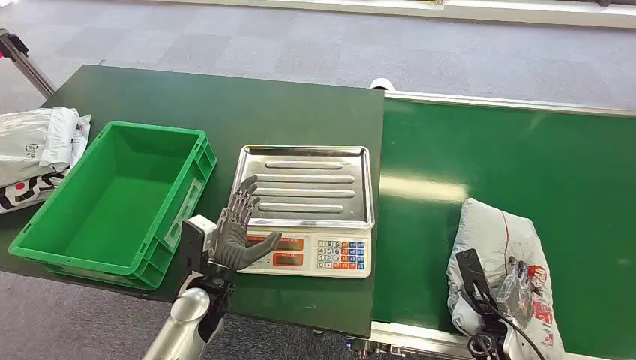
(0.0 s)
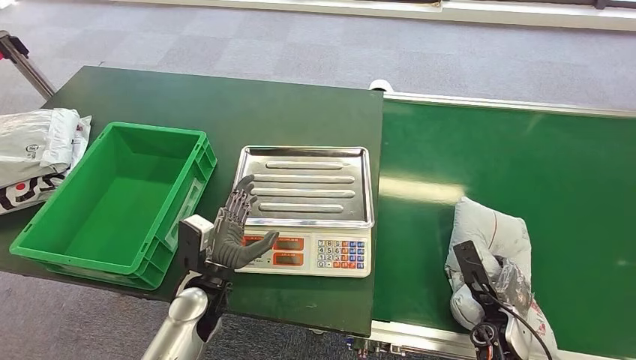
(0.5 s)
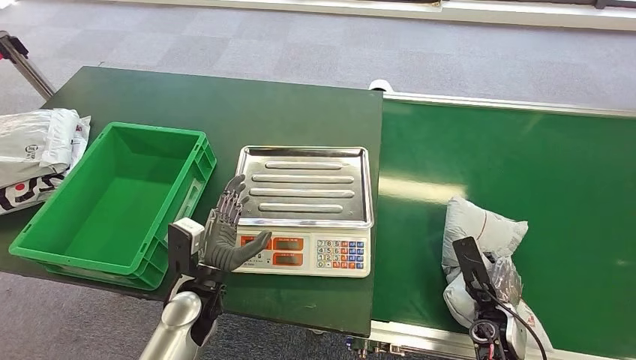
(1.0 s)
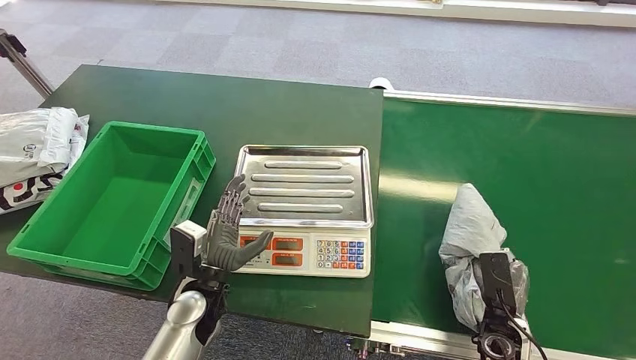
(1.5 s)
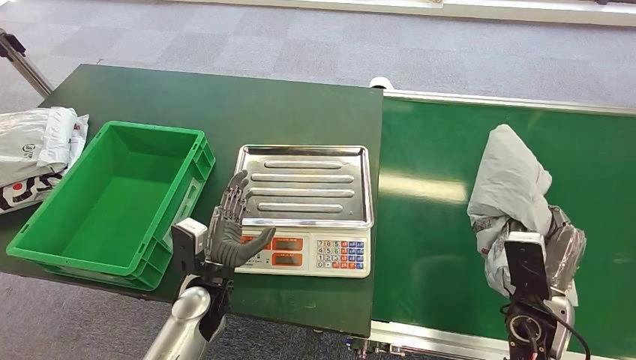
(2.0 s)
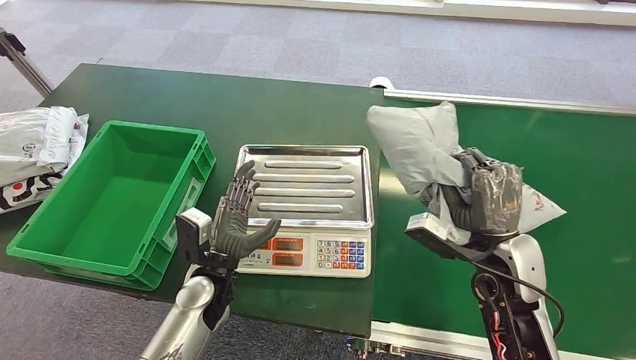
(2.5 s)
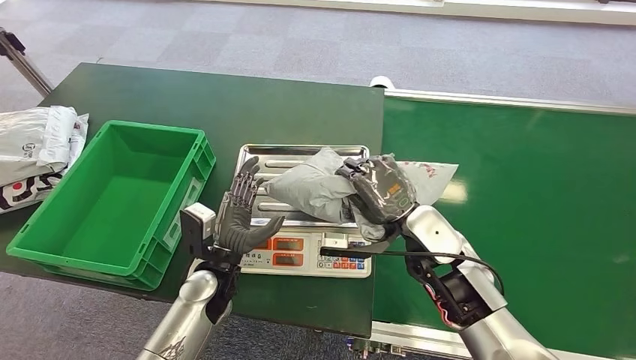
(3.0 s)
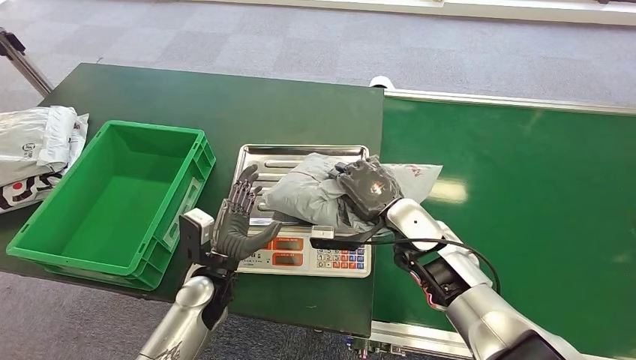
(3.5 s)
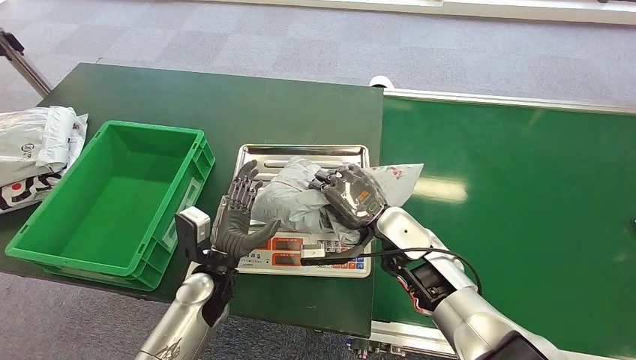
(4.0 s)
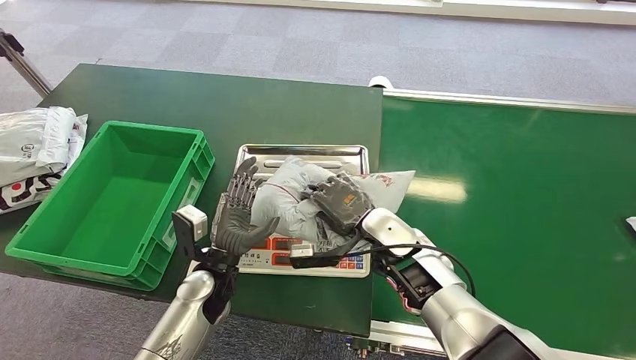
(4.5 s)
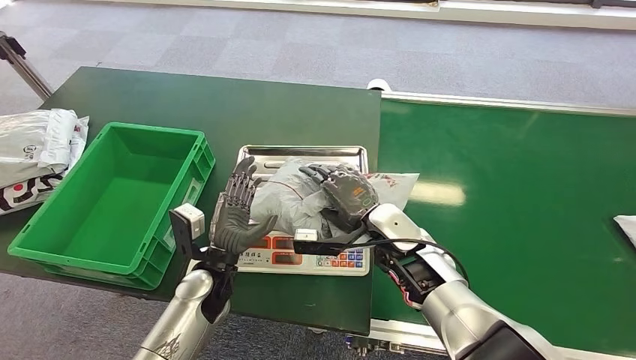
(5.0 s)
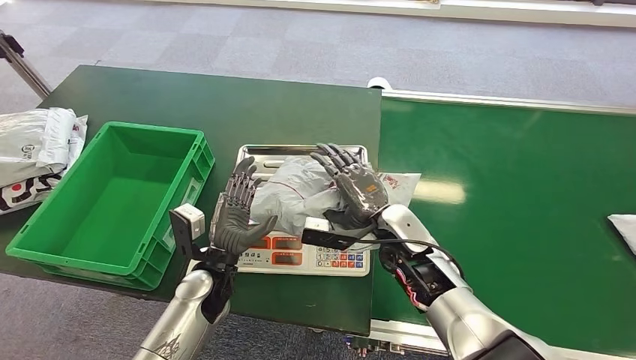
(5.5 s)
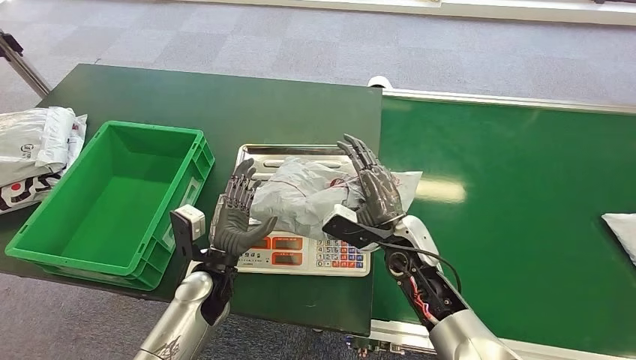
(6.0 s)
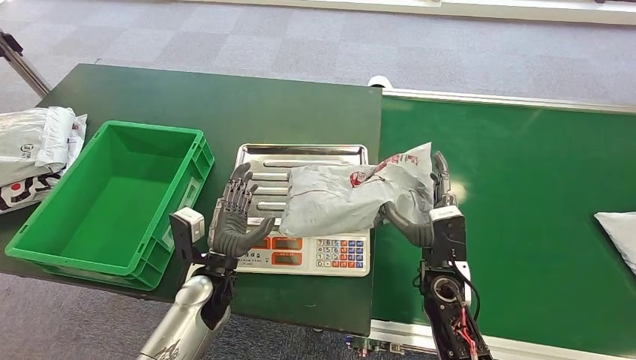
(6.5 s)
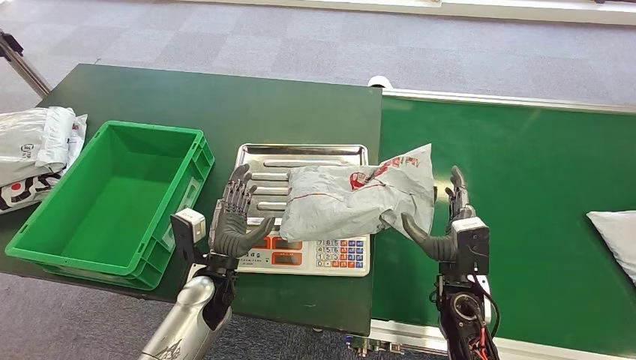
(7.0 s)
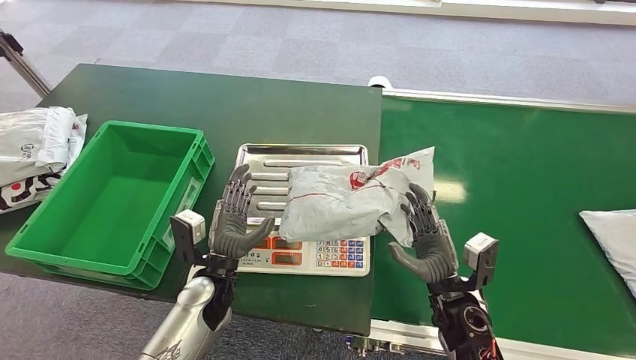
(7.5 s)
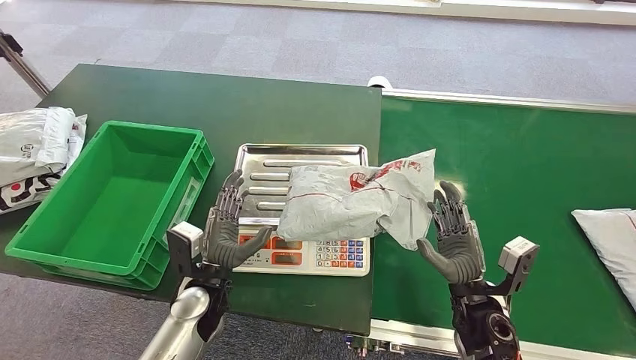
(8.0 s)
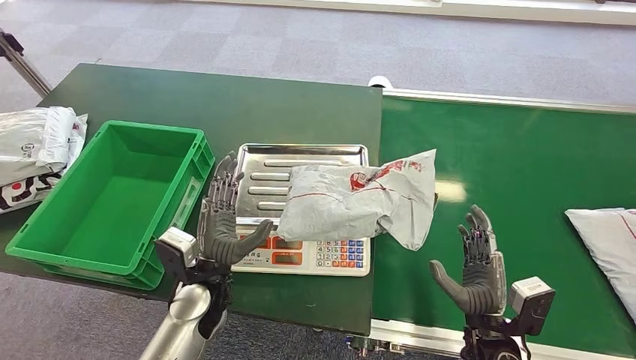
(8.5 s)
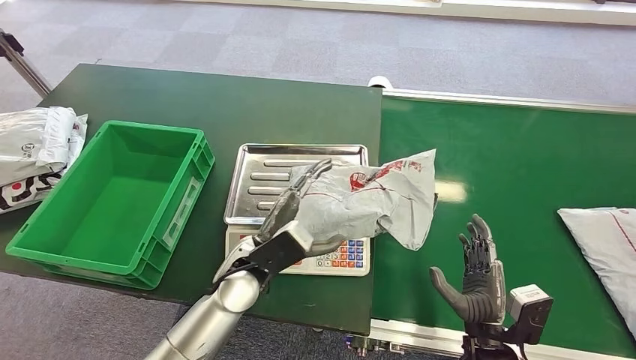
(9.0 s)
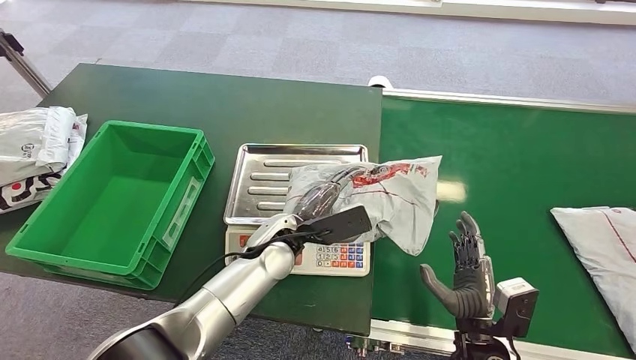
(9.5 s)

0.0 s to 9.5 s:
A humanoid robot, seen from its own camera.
Step, 0.0 to 2.0 s: Pick up the package from the conveyor belt.
Step, 2.5 to 9.0 s: Place the package onto the inbound machine.
5.5 to 7.5 s: The right hand is displaced backward, to the right and downward by about 15 cm.
7.5 to 9.5 s: The left hand is displaced to the right, forward and upward by about 15 cm; the right hand goes roughly 5 cm backward.

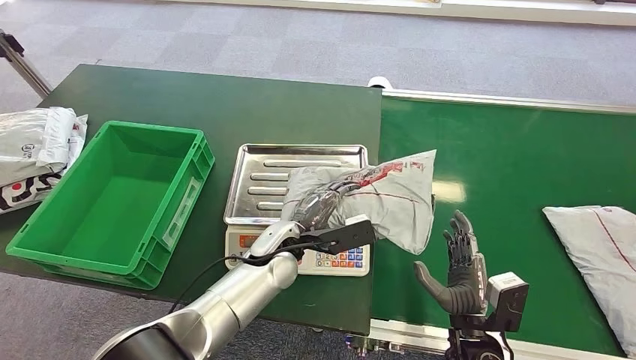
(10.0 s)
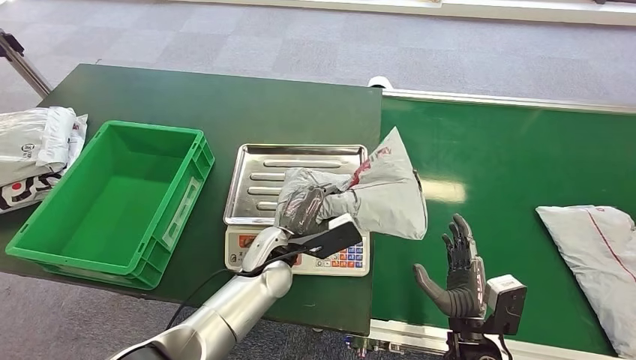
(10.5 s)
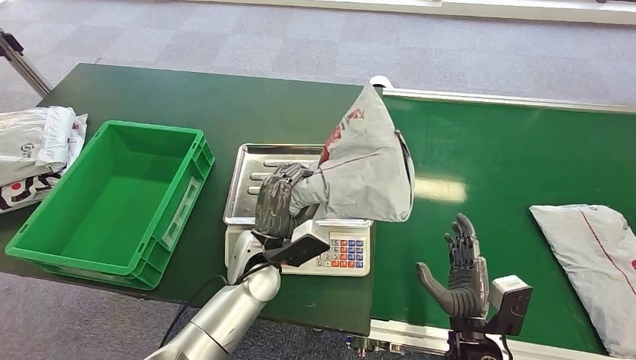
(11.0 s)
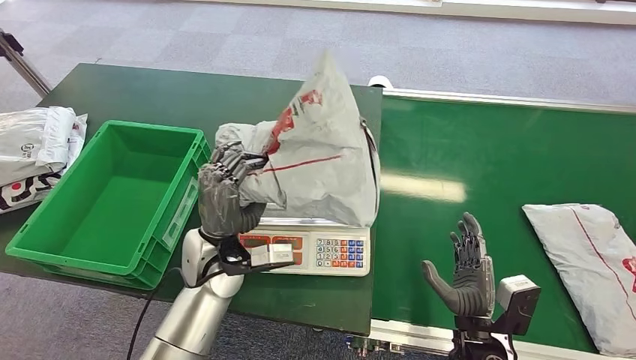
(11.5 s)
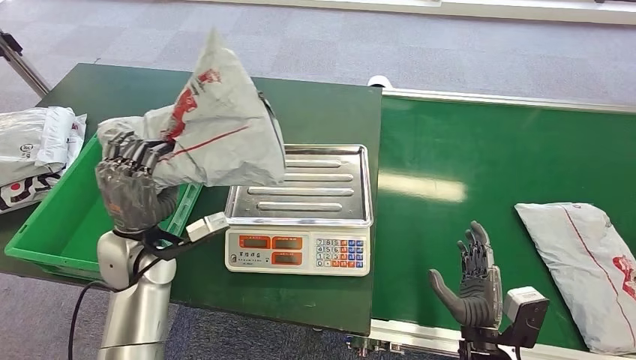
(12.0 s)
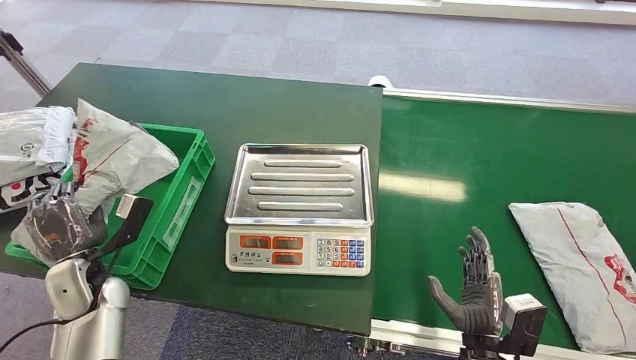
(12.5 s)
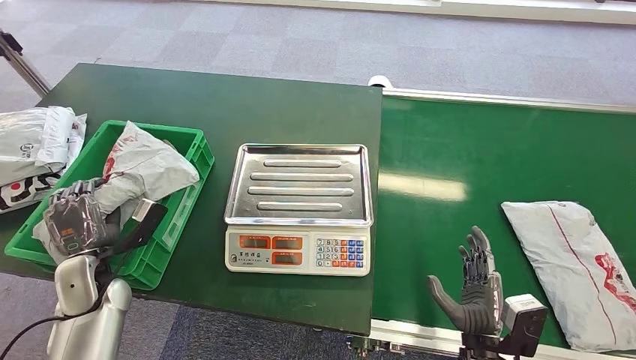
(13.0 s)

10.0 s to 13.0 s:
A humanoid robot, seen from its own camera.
Step, 10.0 to 11.5 s: Pick up the package from the inbound machine.
Step, 12.0 to 13.0 s: Place the package into the parcel locker.
